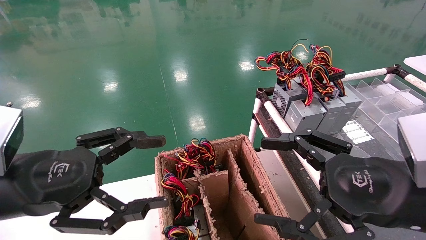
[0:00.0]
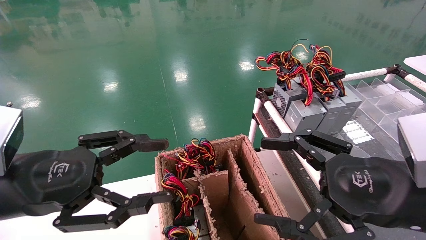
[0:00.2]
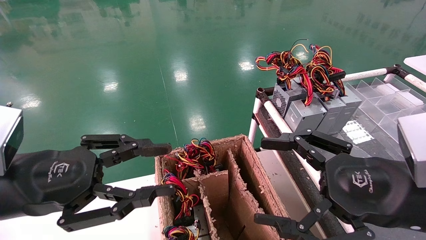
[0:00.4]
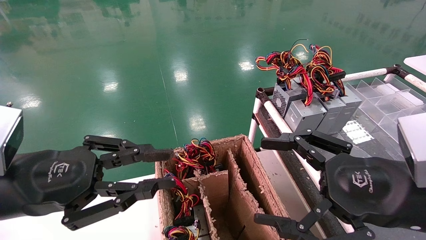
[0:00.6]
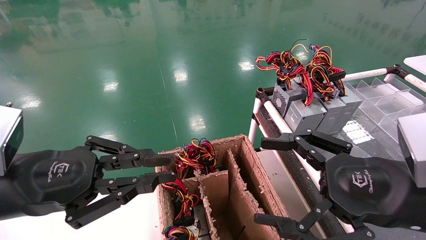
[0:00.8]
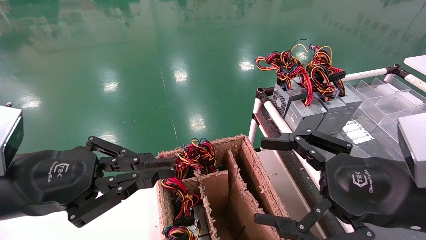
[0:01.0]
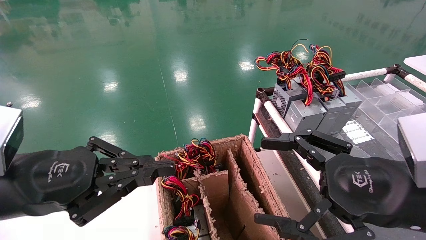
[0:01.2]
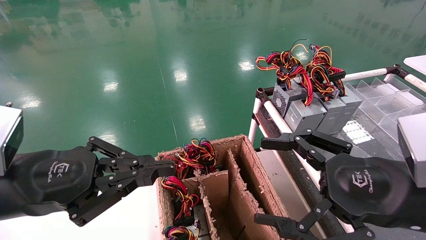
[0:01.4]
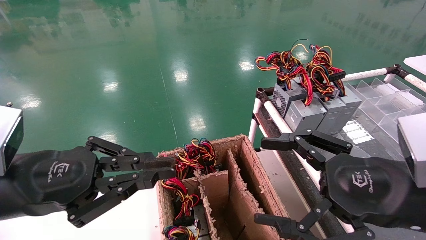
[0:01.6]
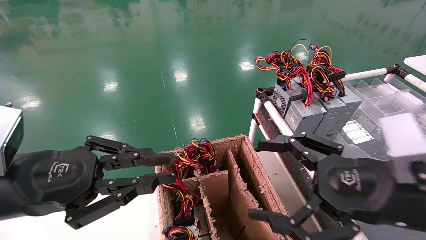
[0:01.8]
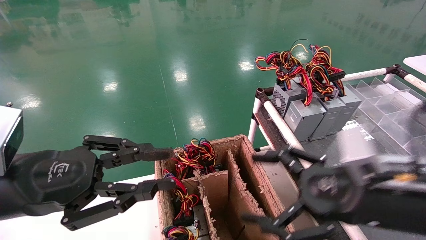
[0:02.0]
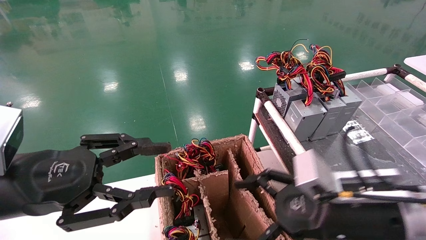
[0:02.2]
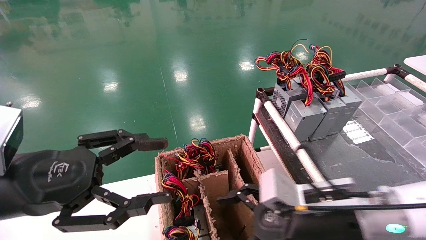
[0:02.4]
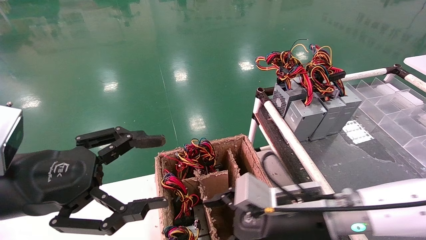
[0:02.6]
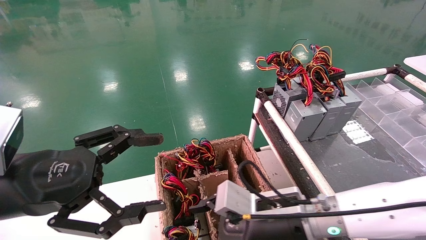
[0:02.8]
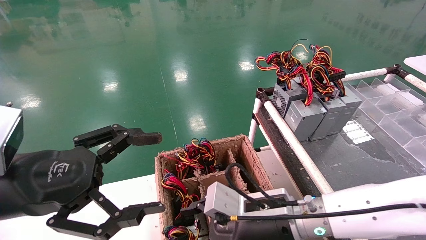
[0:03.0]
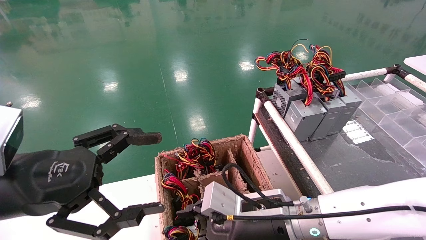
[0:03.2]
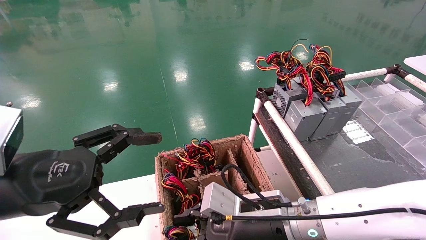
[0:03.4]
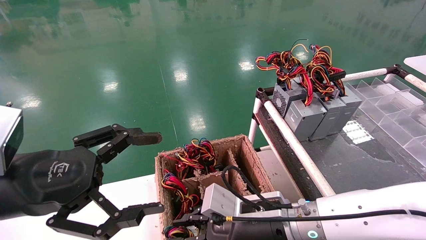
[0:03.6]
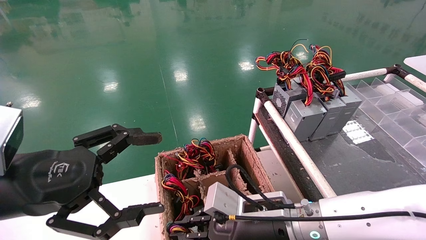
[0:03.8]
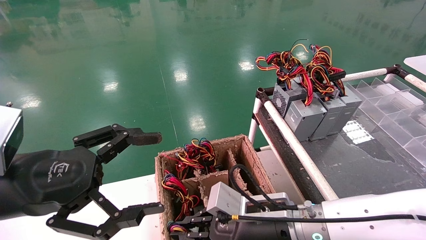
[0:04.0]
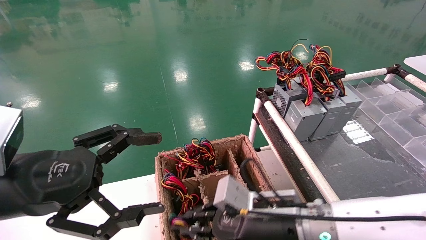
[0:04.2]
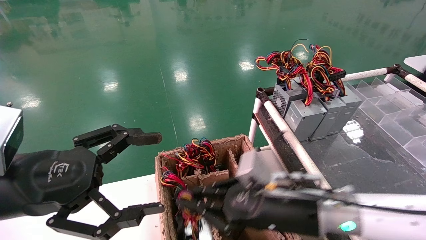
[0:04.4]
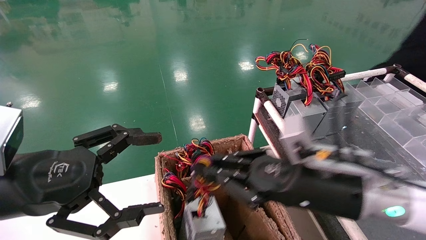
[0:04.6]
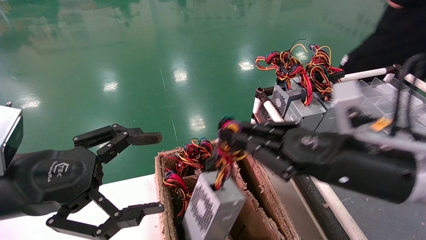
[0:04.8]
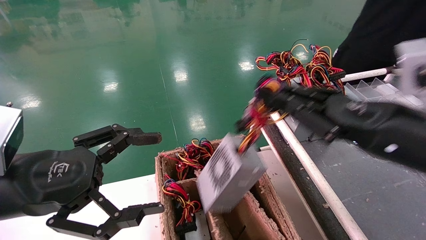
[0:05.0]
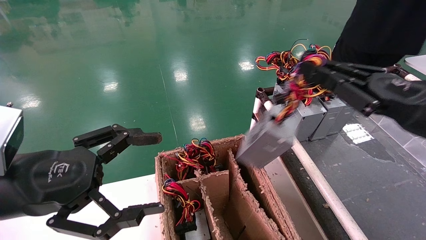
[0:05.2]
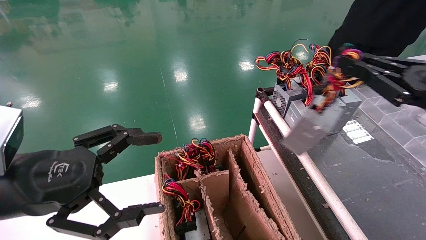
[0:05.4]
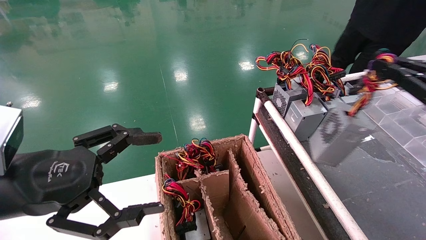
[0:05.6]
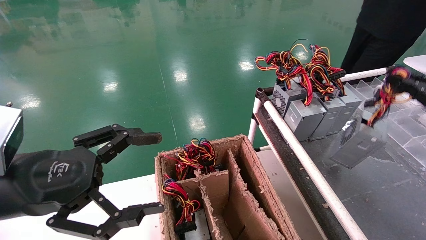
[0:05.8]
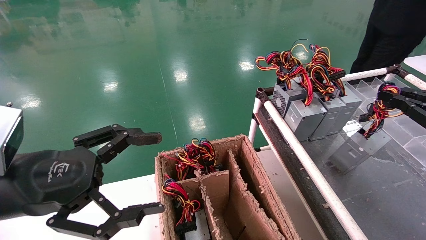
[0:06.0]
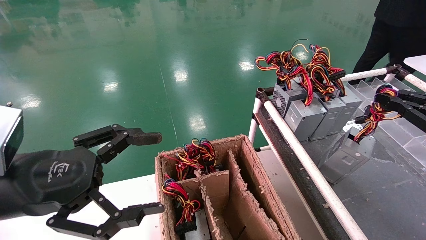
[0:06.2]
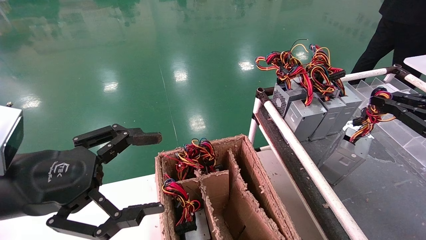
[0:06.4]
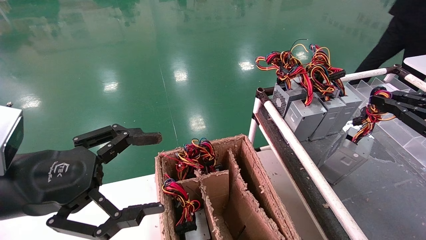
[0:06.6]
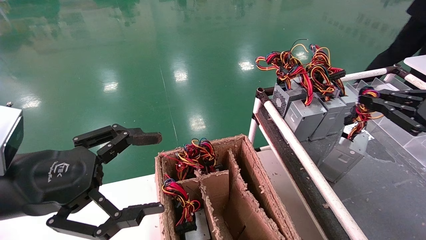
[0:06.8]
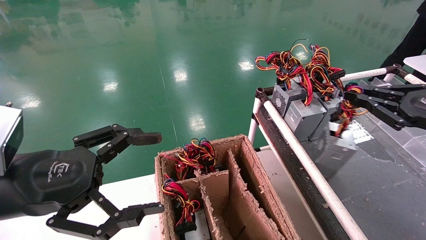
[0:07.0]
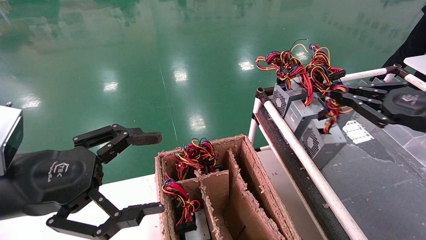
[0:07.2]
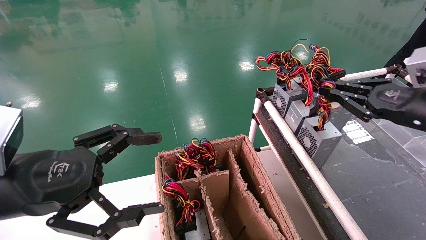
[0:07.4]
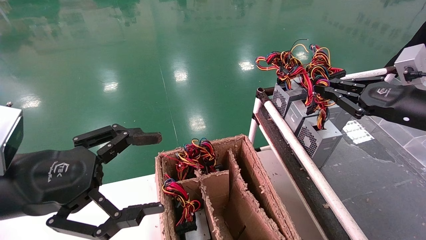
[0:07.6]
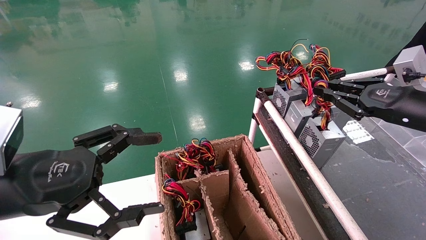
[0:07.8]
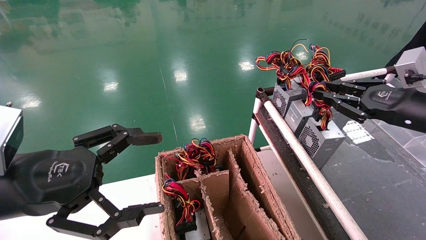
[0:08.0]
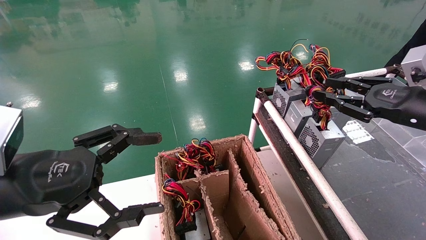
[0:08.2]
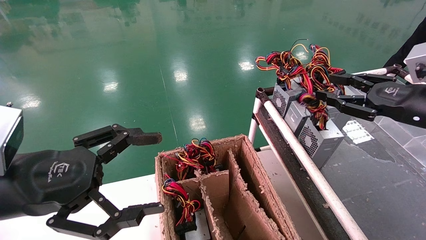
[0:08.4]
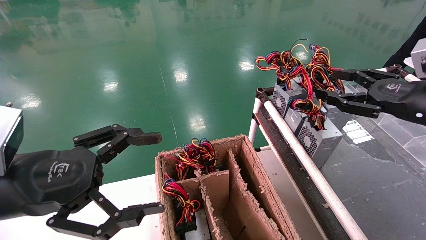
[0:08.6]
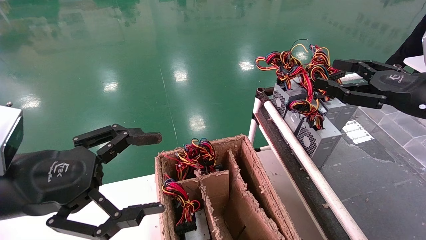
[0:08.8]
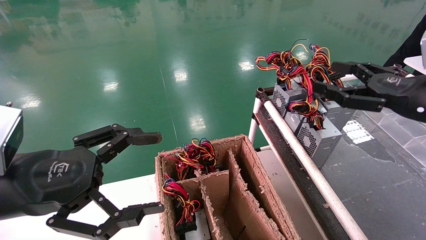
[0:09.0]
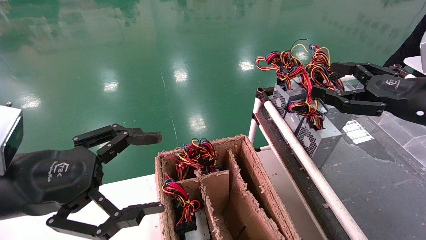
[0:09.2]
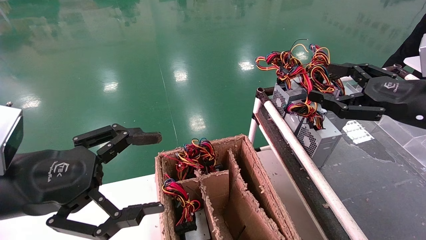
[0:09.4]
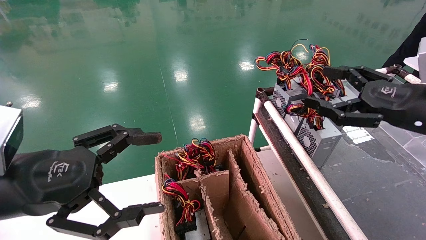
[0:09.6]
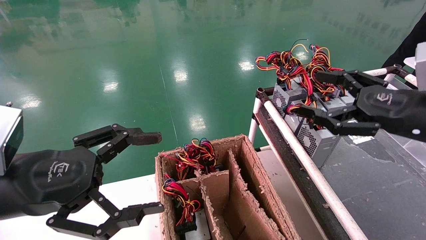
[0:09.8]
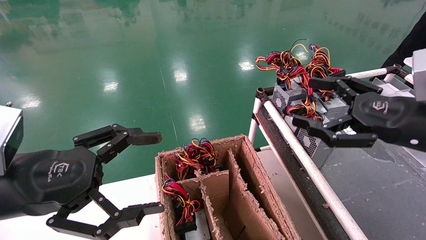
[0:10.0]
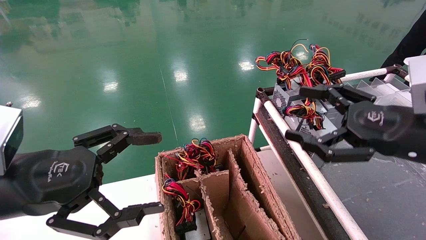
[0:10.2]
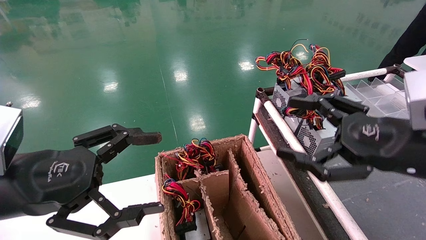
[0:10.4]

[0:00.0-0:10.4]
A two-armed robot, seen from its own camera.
Step, 0:01.2 to 0:04.0: Grab and lift the power supply from the large box.
Step, 0:04.2 to 0:07.8: Place the power supply on the operating table.
0:00.0 to 0:01.4: The left gripper closes its fingers.
0:01.4 to 0:03.0: The right gripper goes approximately 20 cm to the left, downward and forward; the left gripper opens up.
0:03.0 to 0:04.4: The right gripper ends up about 5 cm from where it was, and closes up.
0:04.4 to 0:06.0: The right gripper shifts roughly 30 cm to the right.
0:06.0 to 0:07.4: The right gripper heads to the left and forward, covering approximately 10 cm.
0:07.4 to 0:09.0: The right gripper opens its fingers.
0:09.0 to 0:10.4: The right gripper shifts roughly 10 cm to the left and backward.

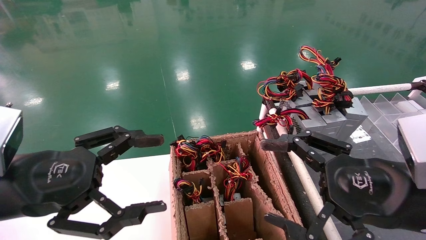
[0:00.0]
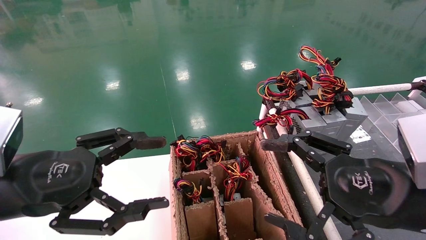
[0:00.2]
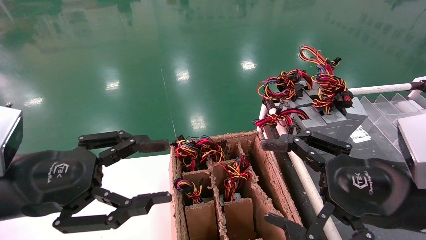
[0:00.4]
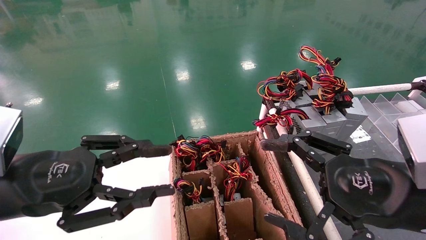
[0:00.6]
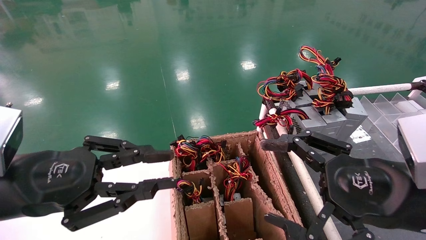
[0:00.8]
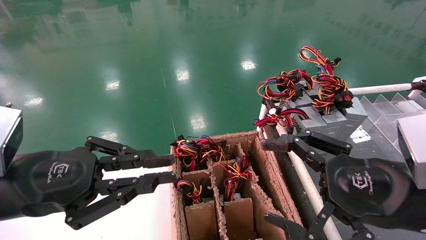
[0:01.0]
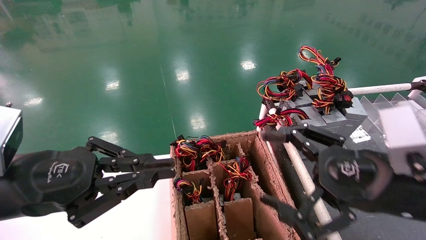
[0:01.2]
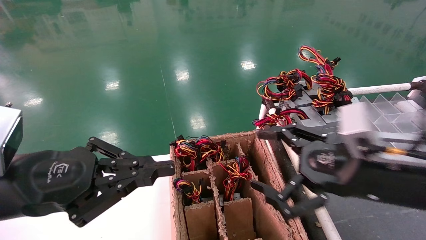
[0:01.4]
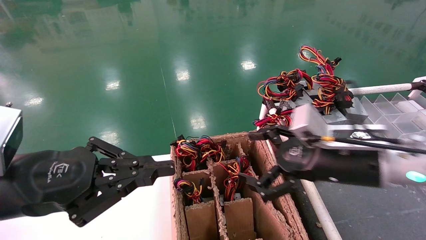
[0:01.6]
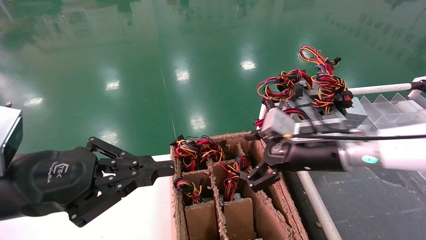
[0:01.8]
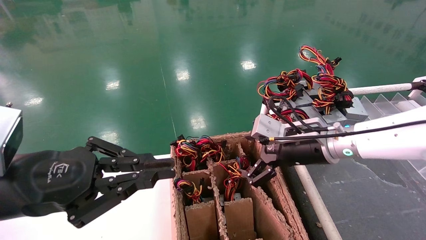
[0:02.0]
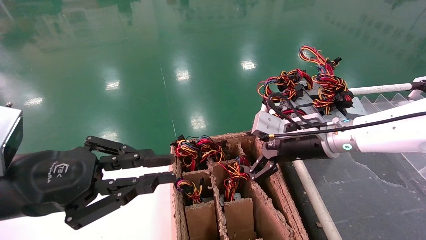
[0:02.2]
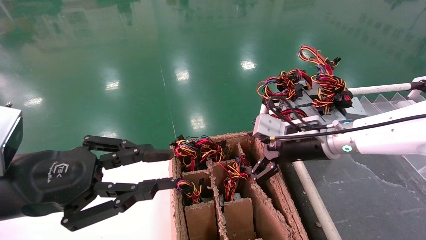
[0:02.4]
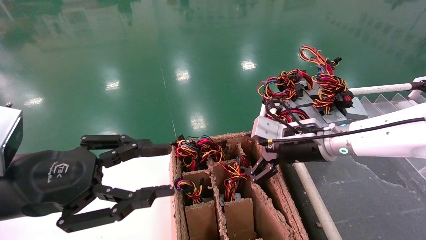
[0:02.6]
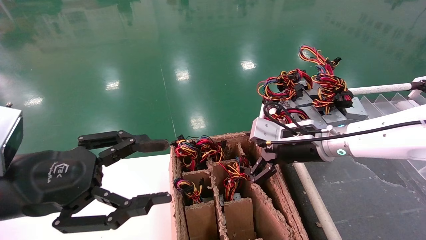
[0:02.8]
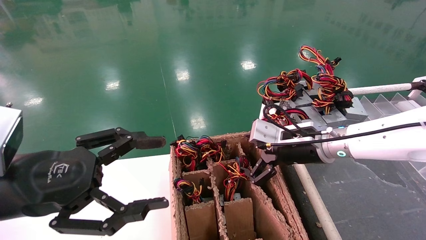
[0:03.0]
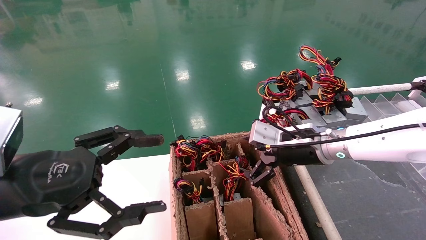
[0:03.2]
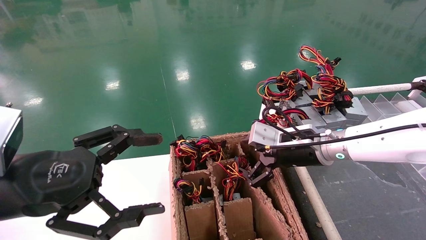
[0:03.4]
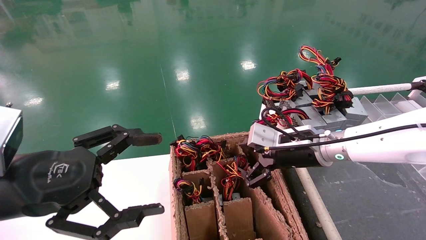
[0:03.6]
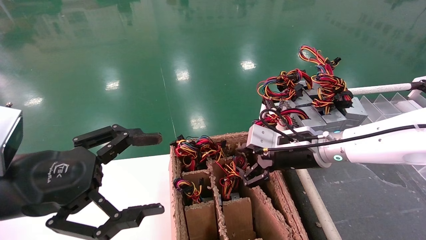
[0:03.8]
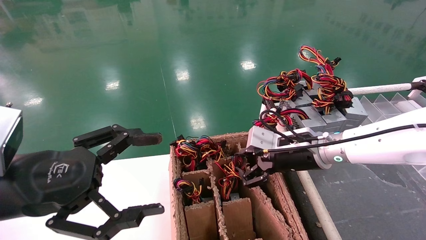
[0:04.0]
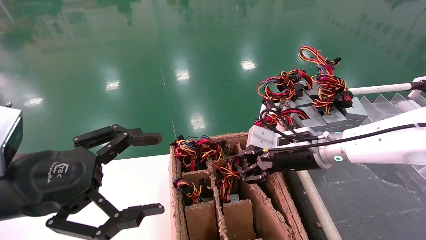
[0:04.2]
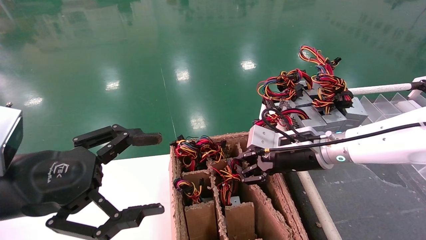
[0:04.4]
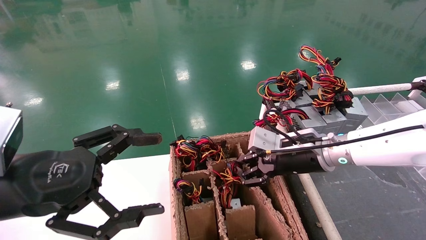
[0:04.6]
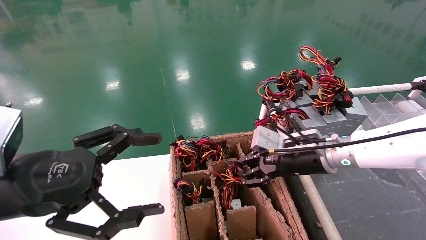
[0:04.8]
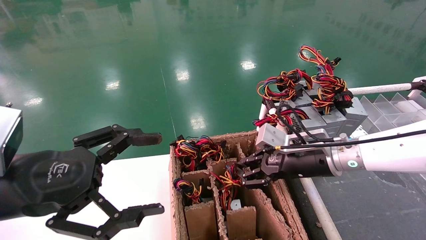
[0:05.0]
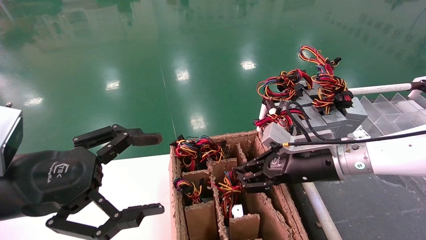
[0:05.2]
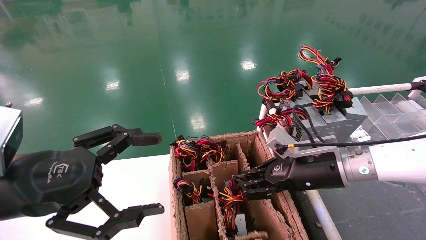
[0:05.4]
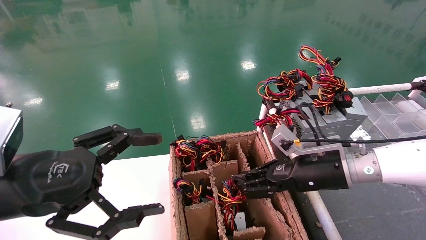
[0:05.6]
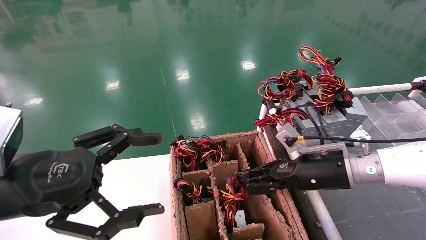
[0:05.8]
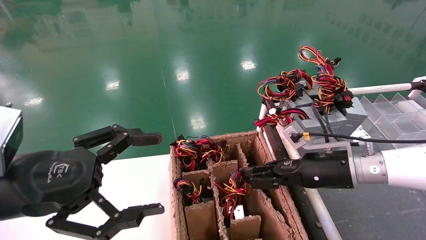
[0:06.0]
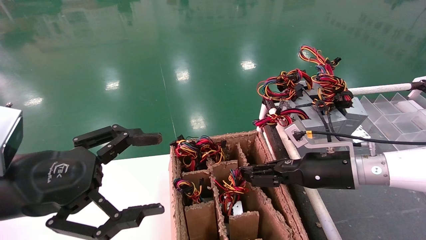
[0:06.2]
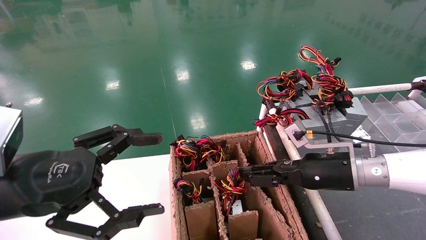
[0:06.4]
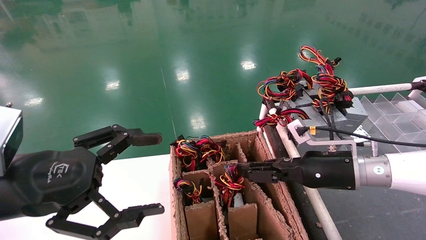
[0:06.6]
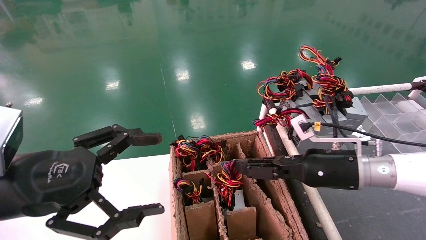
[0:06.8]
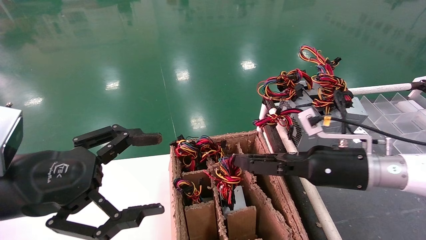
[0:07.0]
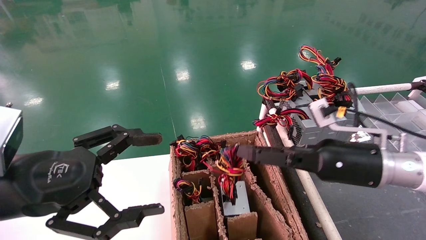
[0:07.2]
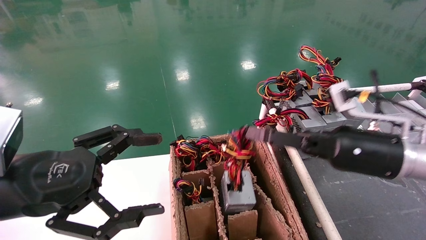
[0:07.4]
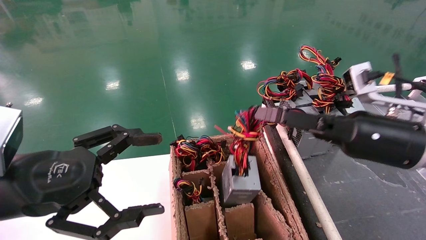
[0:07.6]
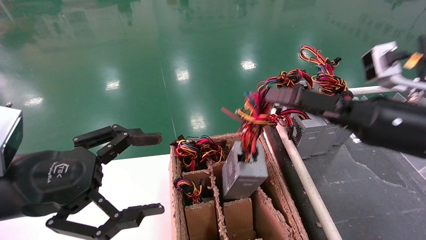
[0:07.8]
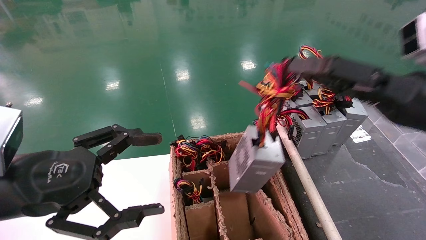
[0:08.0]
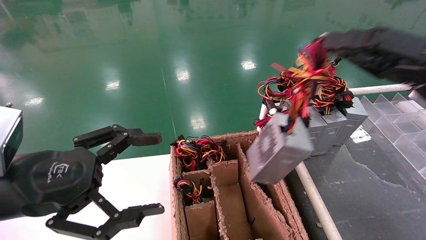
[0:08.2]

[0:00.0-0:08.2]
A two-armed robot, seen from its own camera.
Step, 0:01.2 to 0:05.0: Grab and lift the power supply from the large box.
0:00.0 to 0:01.6: The left gripper closes up. The right gripper shifts about 10 cm forward.
0:01.6 to 0:03.2: The left gripper opens up, while the right gripper shifts some 10 cm forward.
0:03.2 to 0:05.0: The right gripper closes its fingers.
0:06.6 to 0:08.2: The right gripper heads upward, to the right and backward, covering approximately 20 cm.
